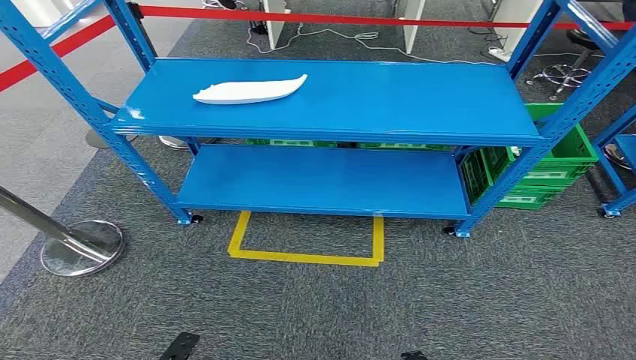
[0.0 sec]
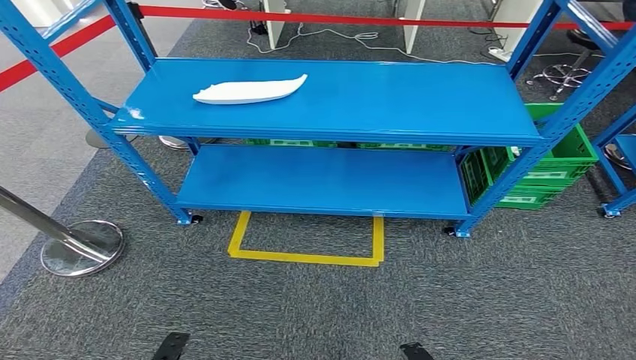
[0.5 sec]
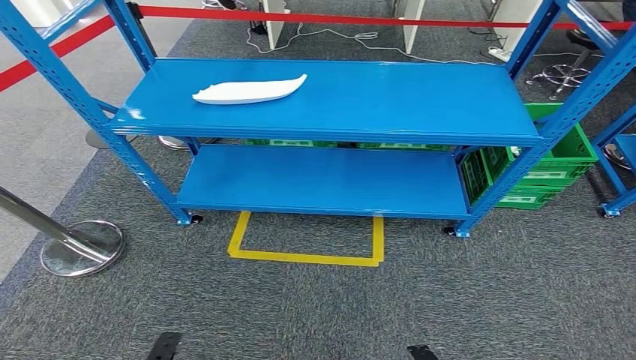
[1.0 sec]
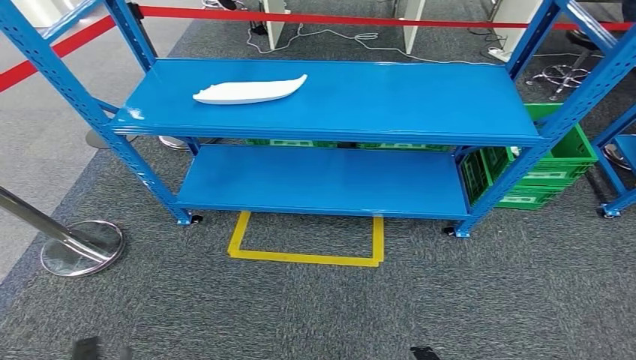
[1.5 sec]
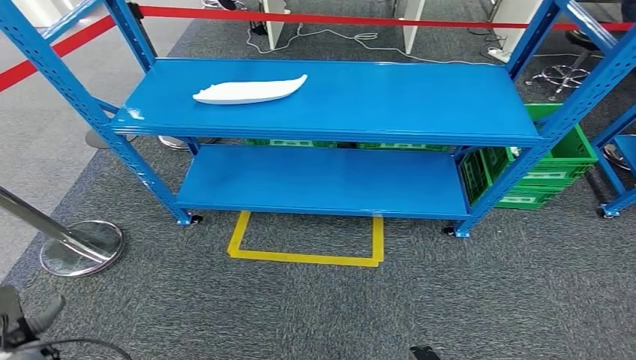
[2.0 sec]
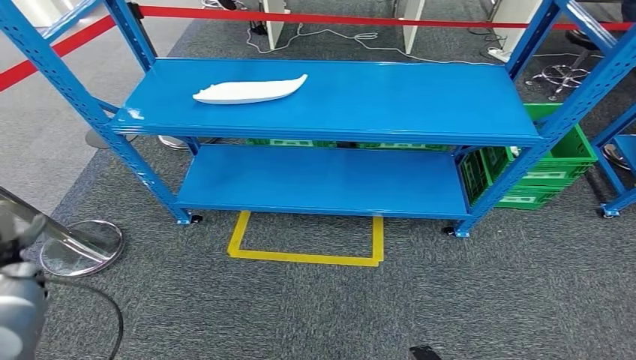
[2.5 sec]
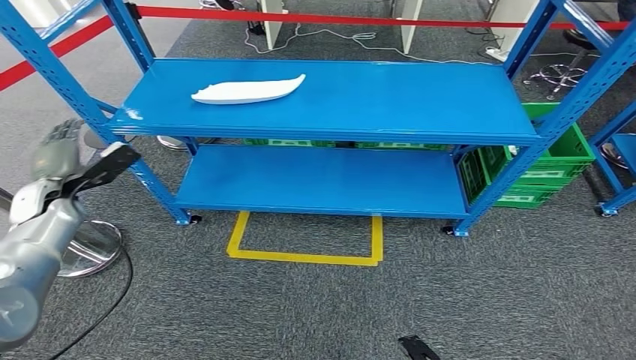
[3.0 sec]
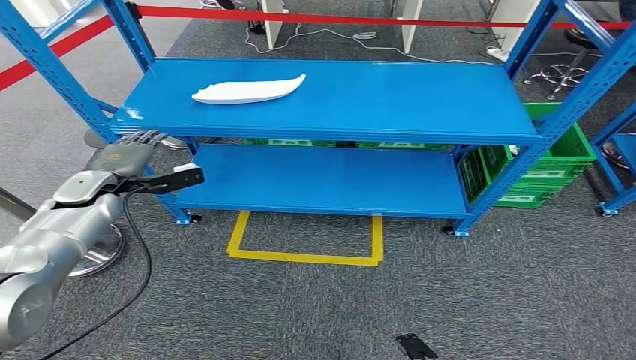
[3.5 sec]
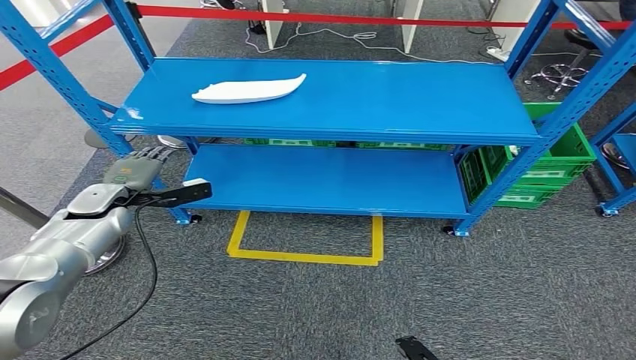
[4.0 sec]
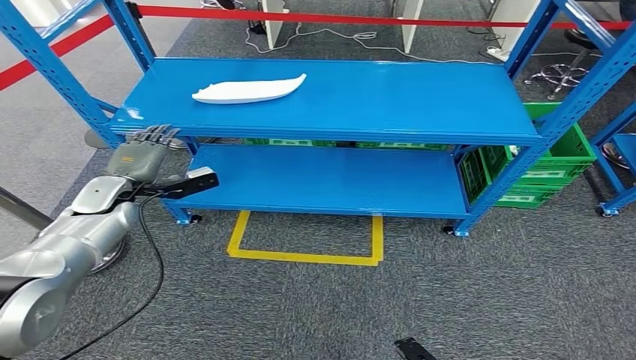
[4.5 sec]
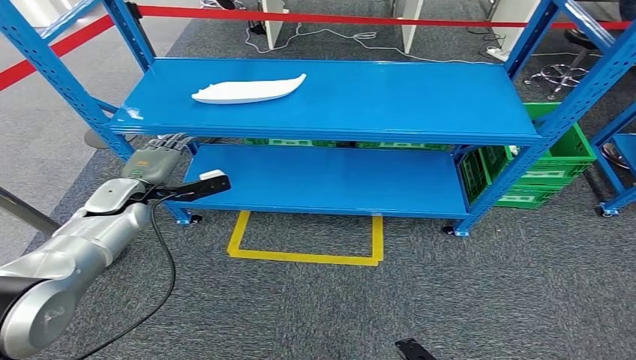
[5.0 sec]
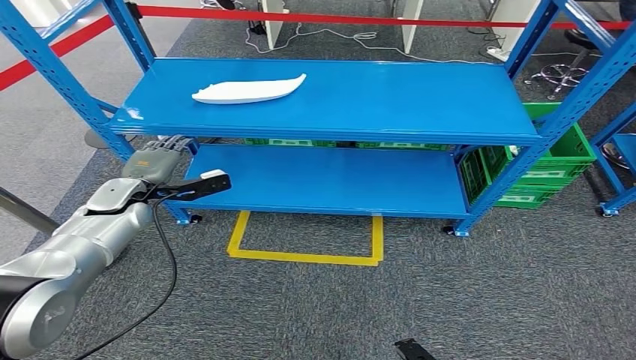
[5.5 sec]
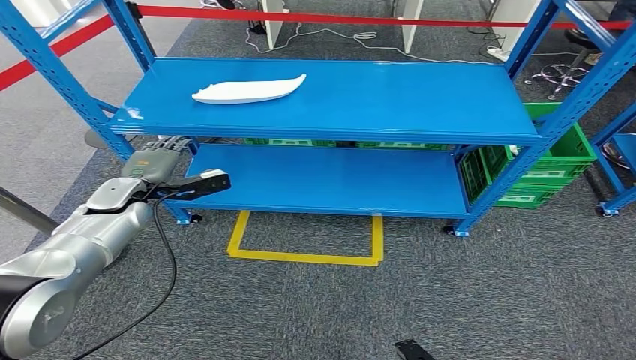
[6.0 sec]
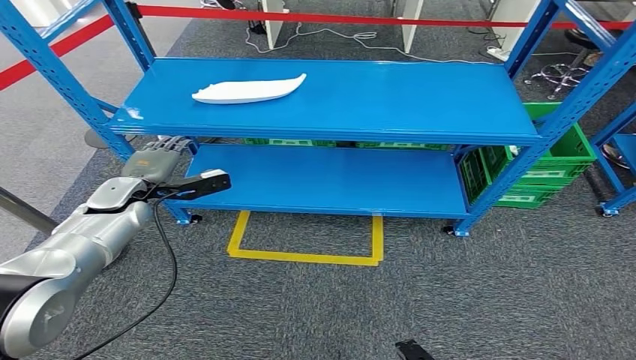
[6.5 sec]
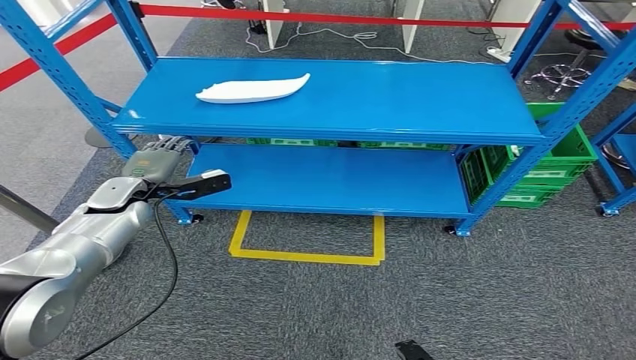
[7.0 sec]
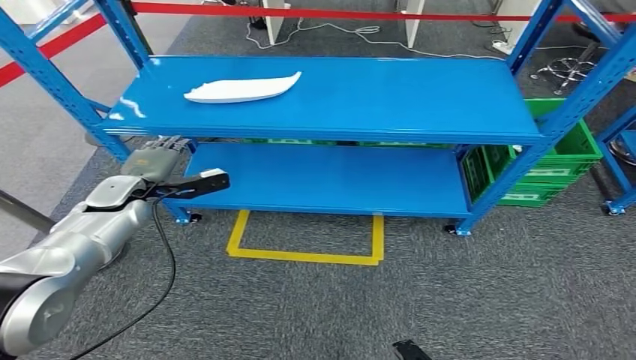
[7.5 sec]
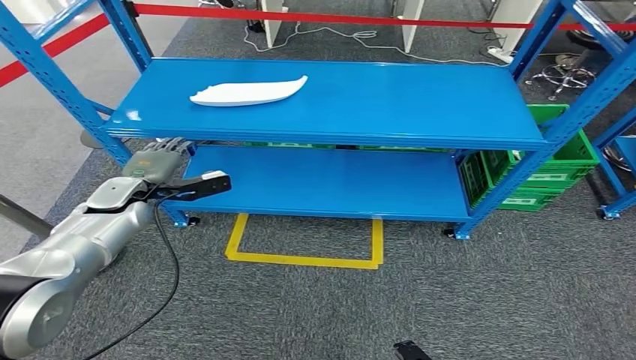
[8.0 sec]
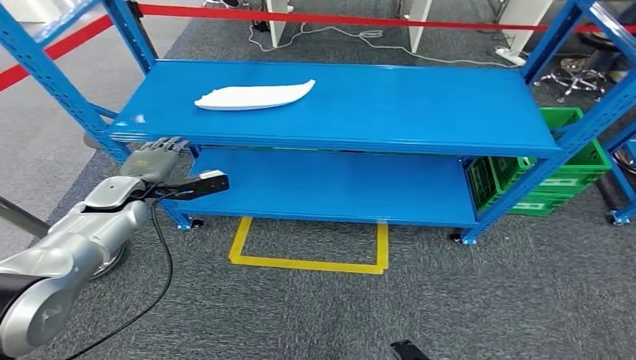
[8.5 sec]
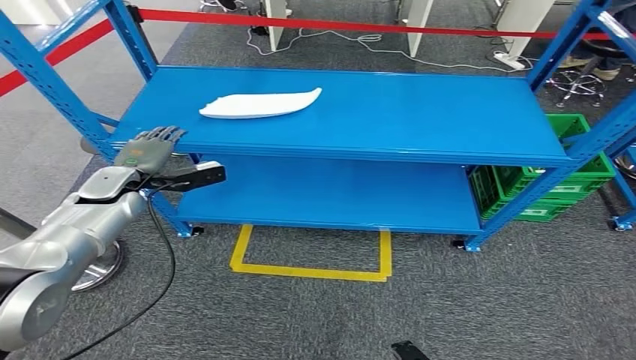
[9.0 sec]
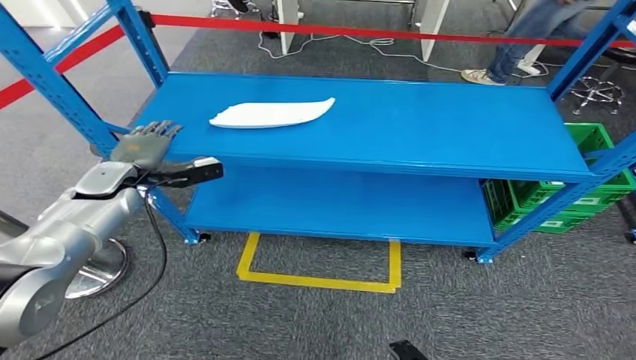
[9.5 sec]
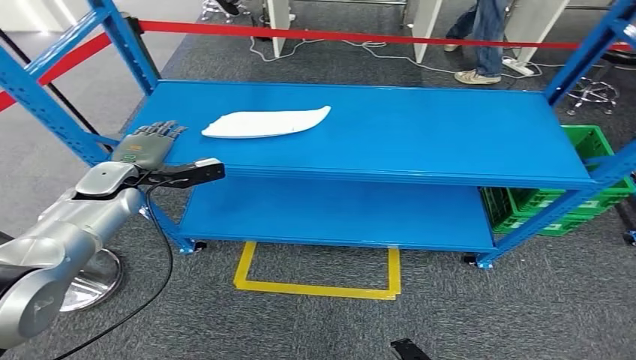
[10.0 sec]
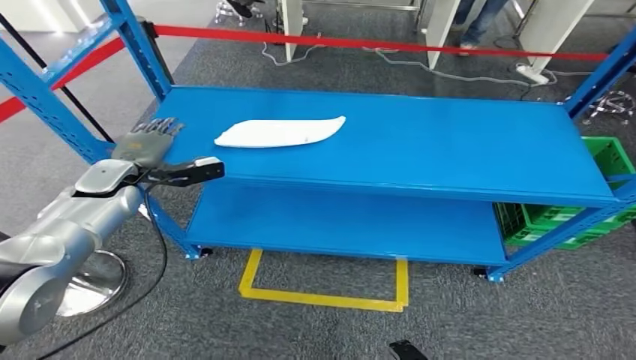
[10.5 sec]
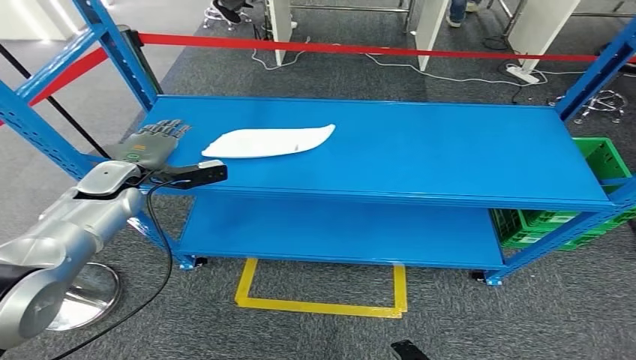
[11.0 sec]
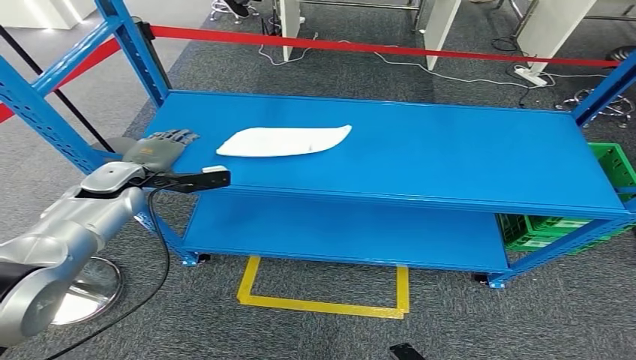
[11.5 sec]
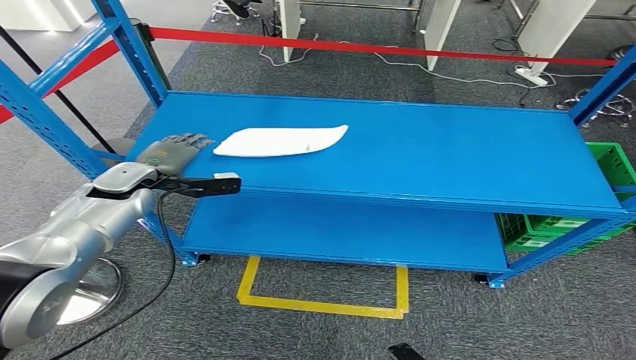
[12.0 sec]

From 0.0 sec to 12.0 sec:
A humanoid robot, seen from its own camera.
From 2.0 sec to 4.0 sec: The left hand is displaced forward, upward and to the right by roughly 35 cm.
From 4.0 sec to 6.0 sec: The hands make only small movements.
From 6.0 sec to 8.0 sec: Neither hand changes place.

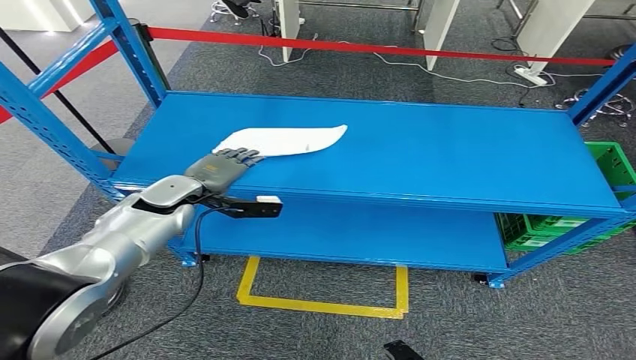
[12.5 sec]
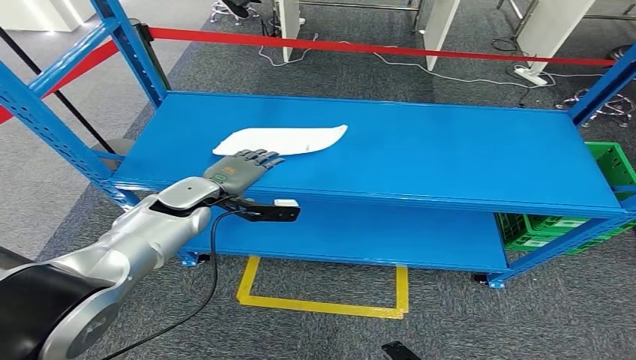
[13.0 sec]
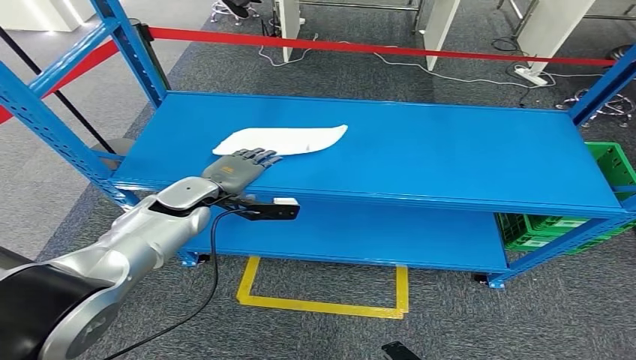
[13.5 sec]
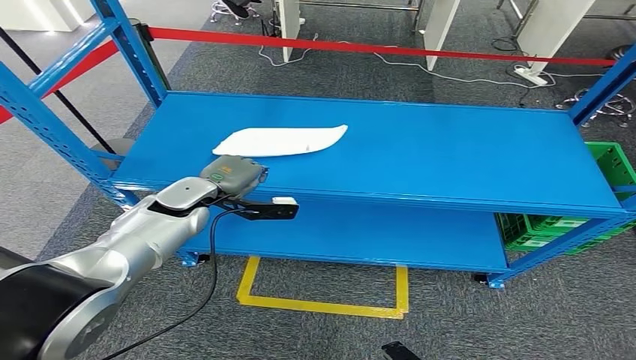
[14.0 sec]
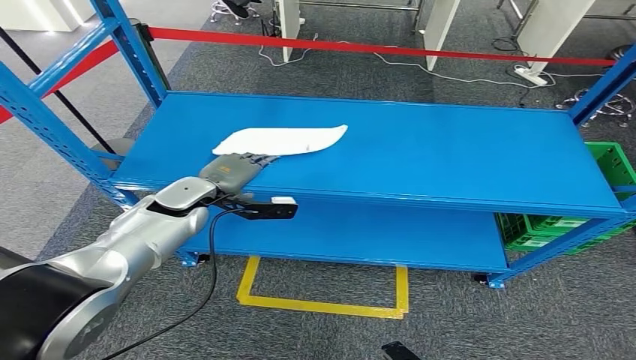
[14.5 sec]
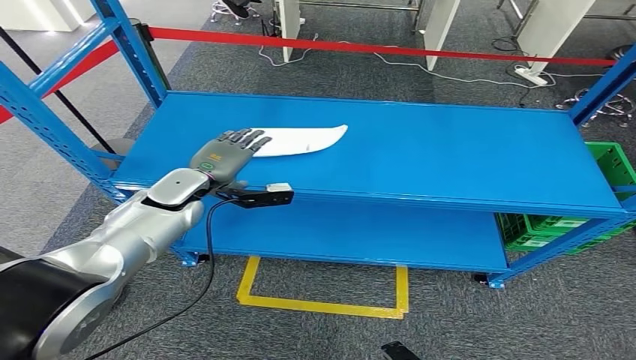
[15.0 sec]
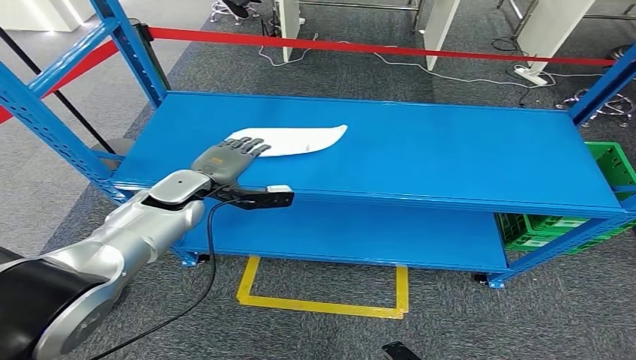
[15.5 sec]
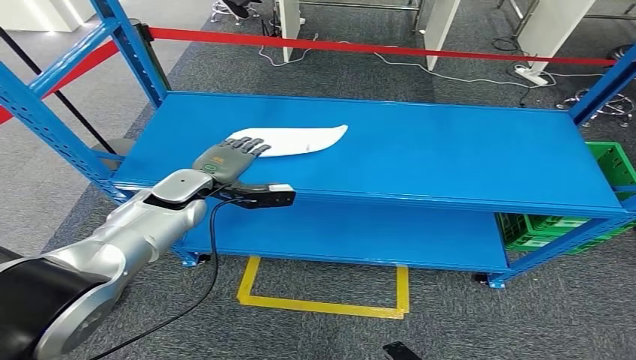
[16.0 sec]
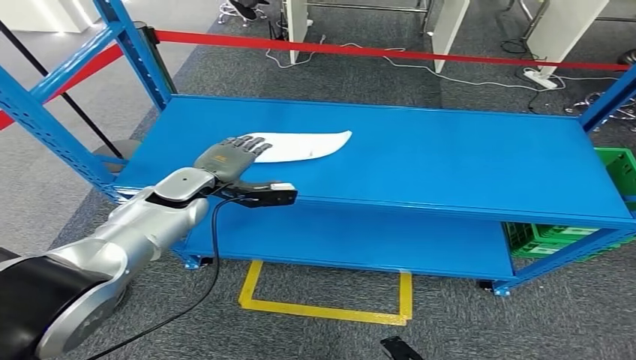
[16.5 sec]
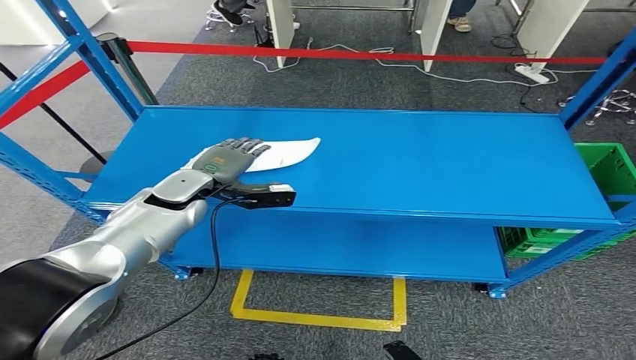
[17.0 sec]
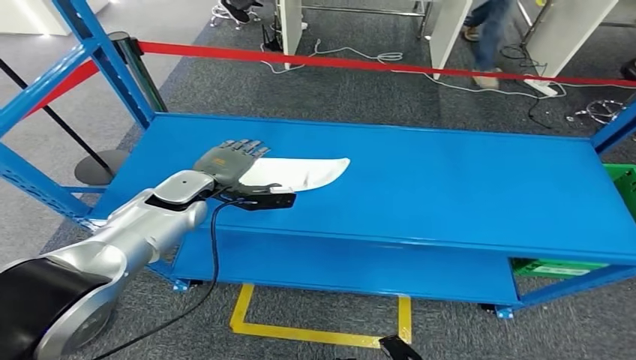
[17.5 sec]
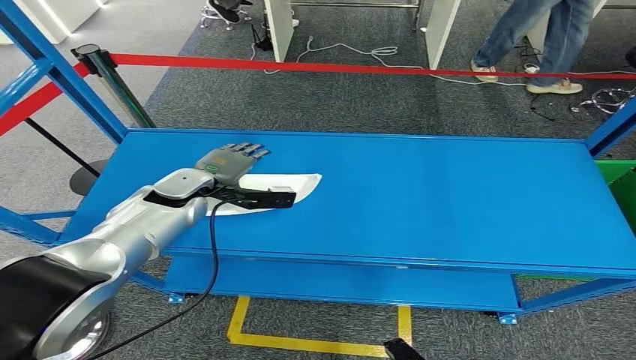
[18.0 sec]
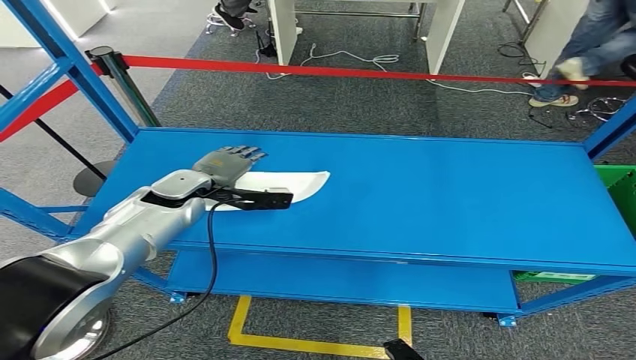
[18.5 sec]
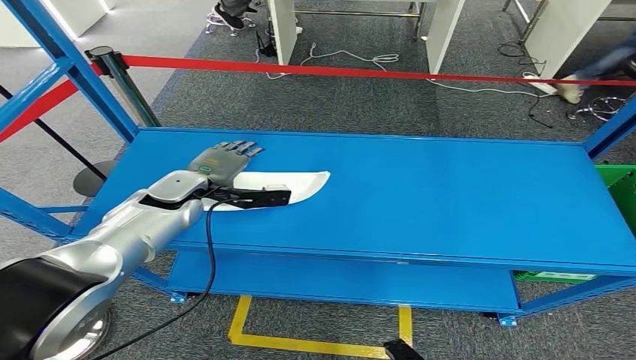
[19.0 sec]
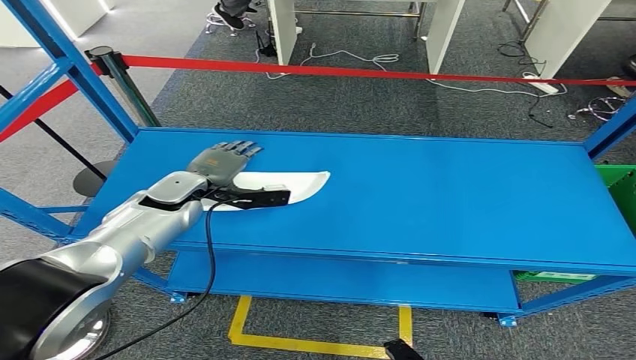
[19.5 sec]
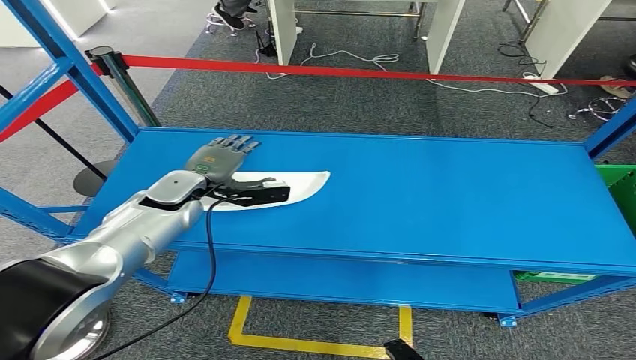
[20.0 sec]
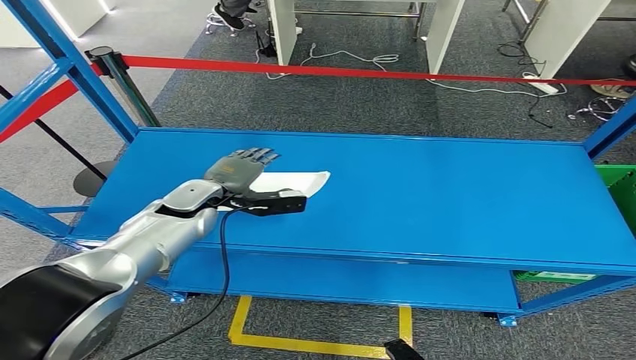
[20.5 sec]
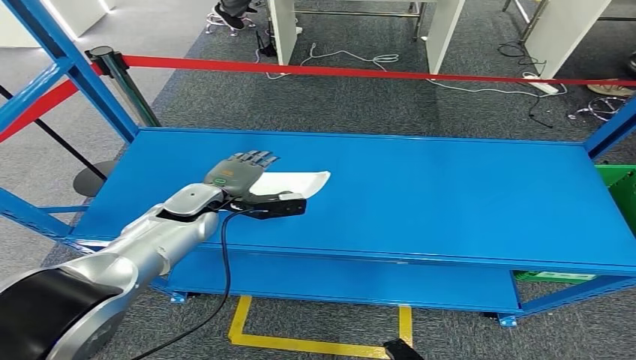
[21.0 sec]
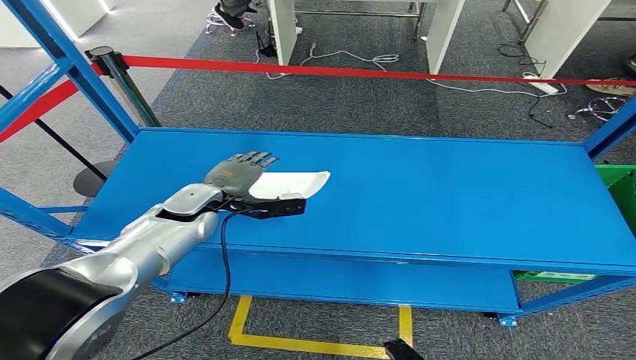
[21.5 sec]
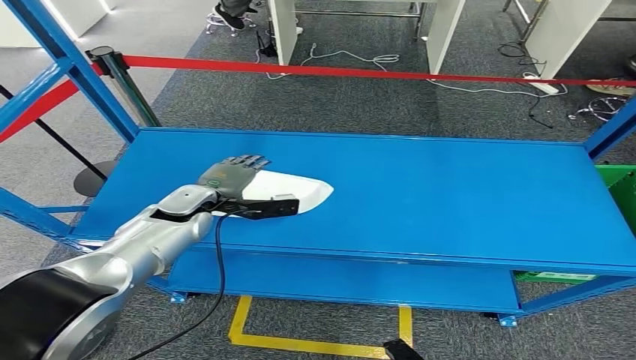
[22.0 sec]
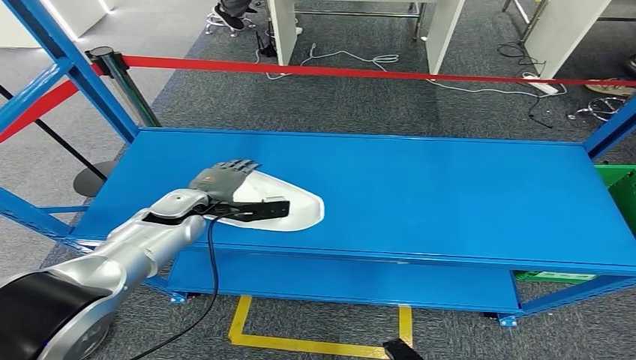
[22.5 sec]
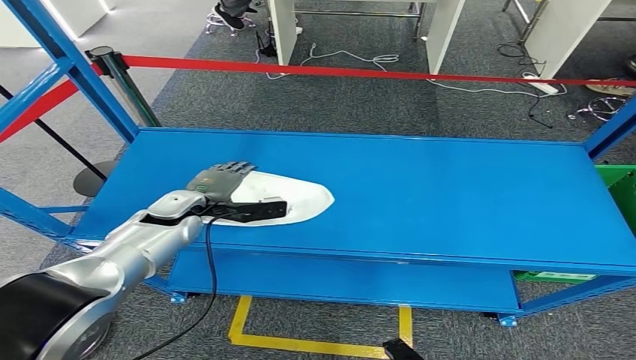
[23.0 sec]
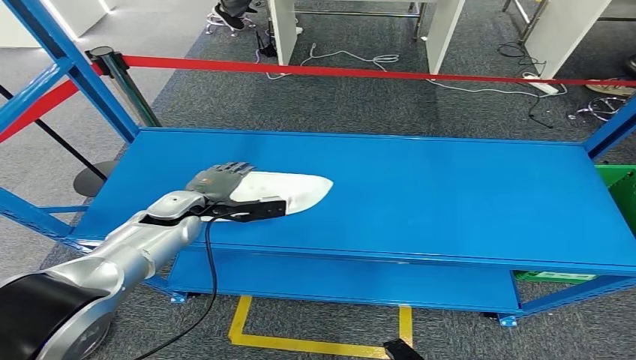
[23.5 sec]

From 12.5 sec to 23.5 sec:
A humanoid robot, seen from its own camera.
From 12.5 sec to 16.0 sec: The hands move only a little.
From 18.0 sec to 23.5 sec: The hands move only a little.
